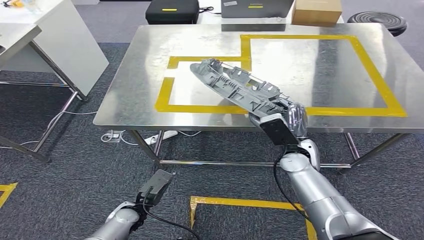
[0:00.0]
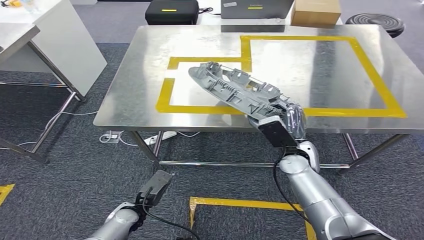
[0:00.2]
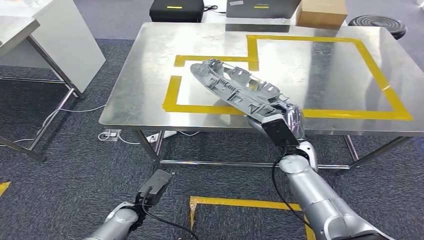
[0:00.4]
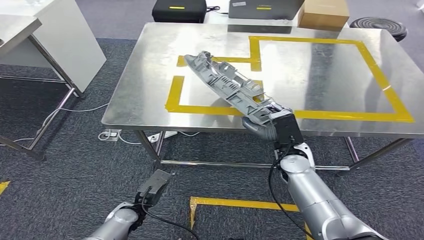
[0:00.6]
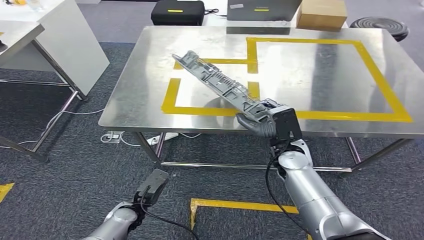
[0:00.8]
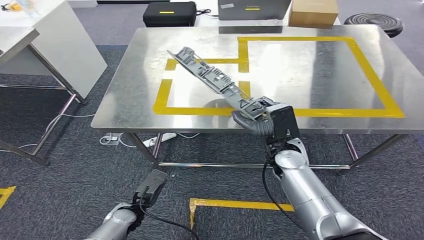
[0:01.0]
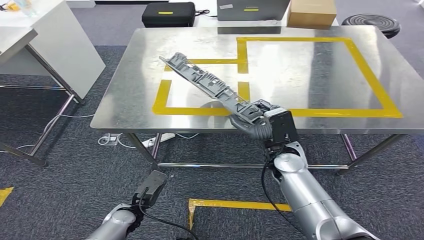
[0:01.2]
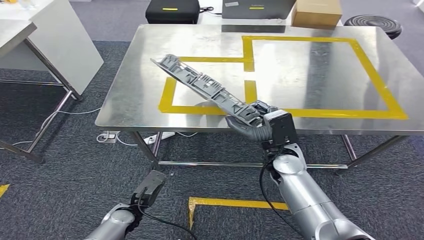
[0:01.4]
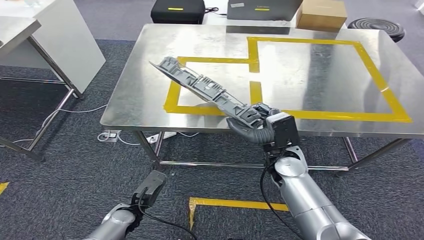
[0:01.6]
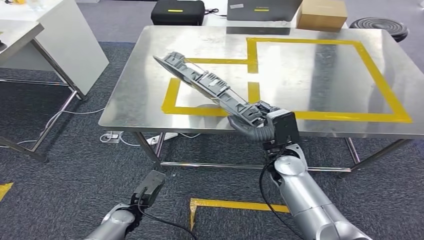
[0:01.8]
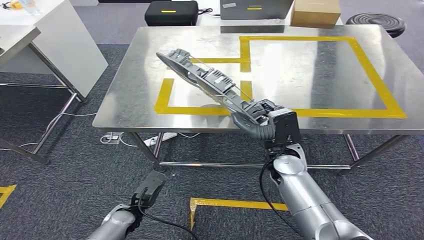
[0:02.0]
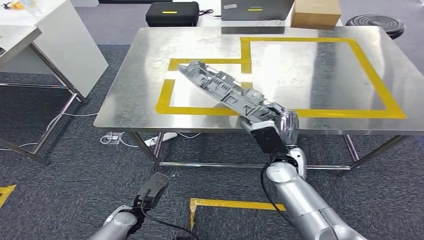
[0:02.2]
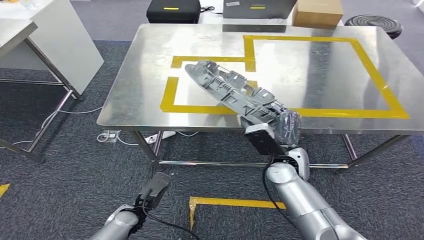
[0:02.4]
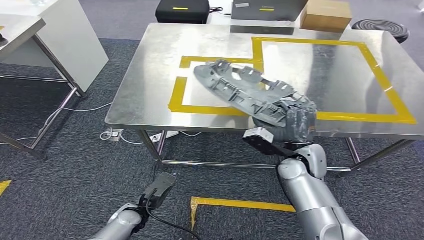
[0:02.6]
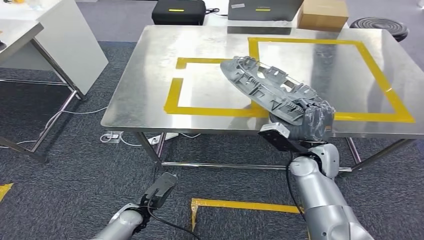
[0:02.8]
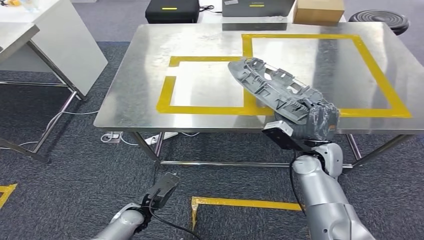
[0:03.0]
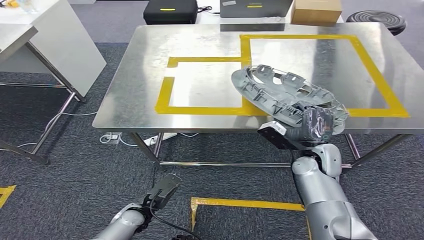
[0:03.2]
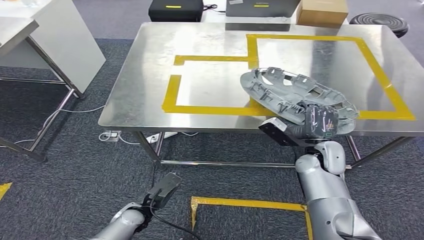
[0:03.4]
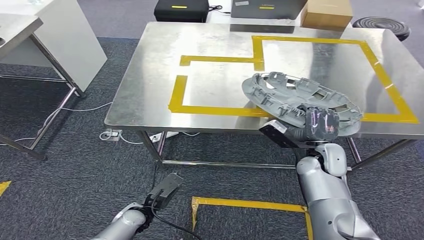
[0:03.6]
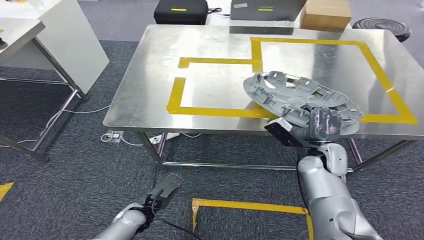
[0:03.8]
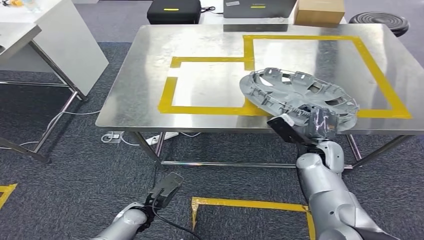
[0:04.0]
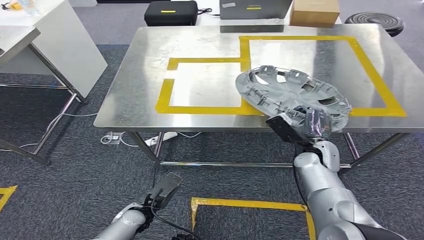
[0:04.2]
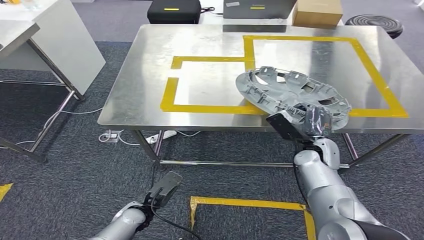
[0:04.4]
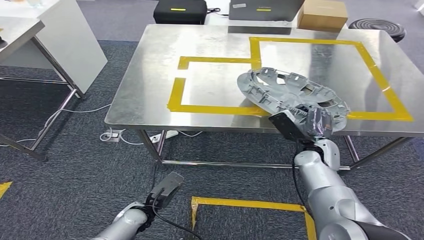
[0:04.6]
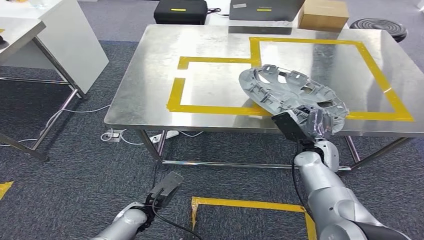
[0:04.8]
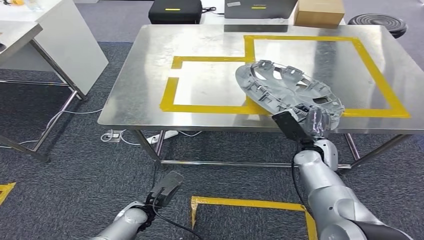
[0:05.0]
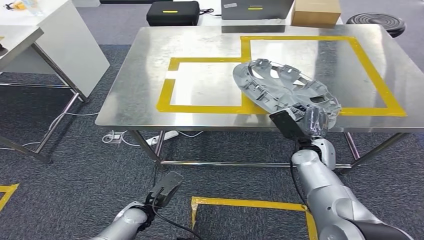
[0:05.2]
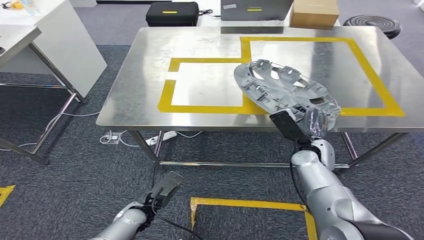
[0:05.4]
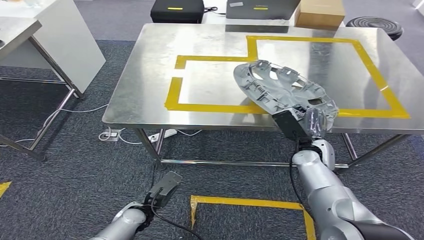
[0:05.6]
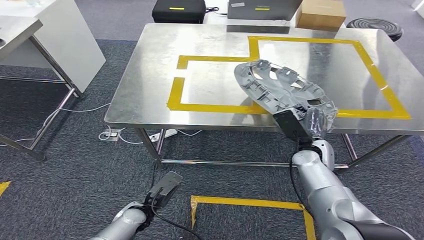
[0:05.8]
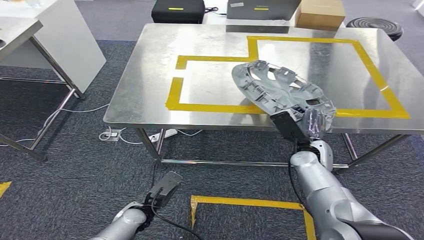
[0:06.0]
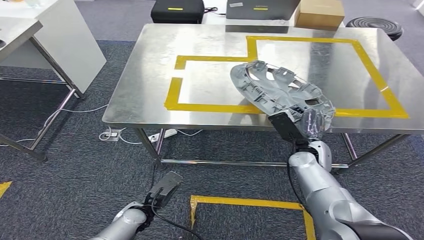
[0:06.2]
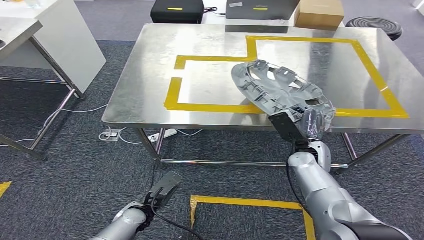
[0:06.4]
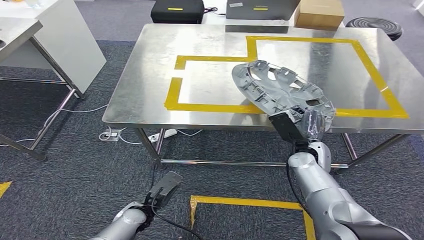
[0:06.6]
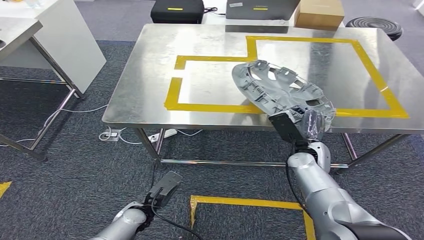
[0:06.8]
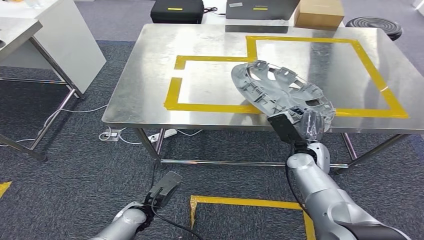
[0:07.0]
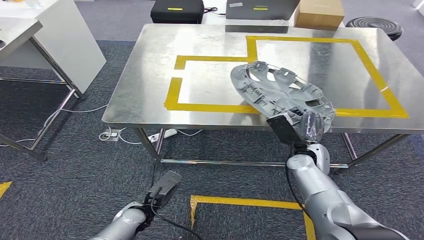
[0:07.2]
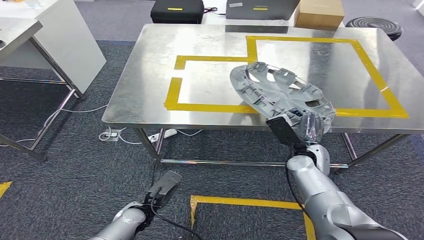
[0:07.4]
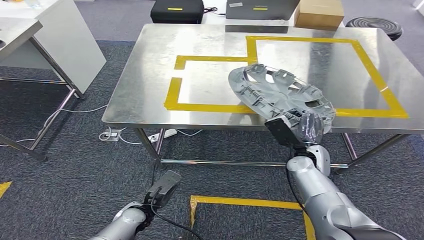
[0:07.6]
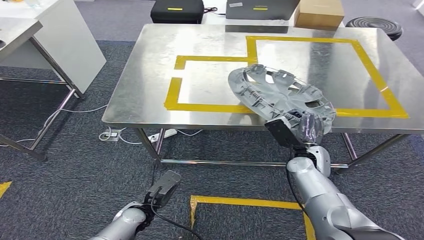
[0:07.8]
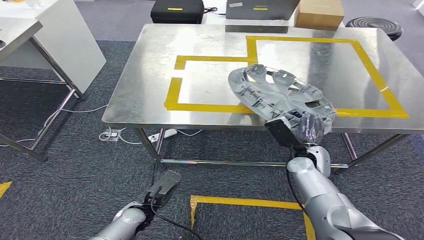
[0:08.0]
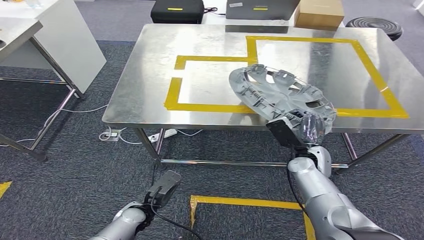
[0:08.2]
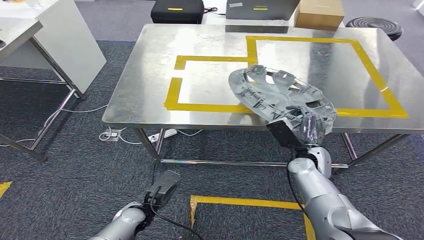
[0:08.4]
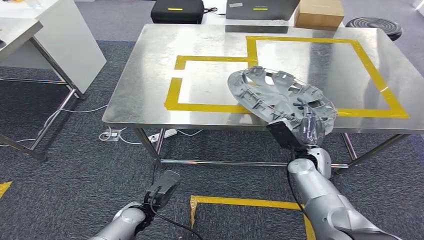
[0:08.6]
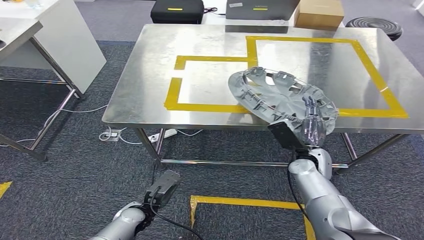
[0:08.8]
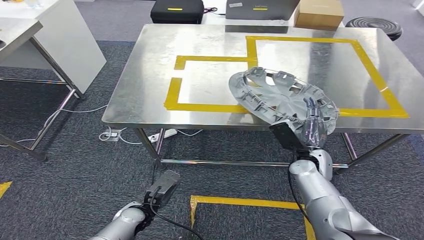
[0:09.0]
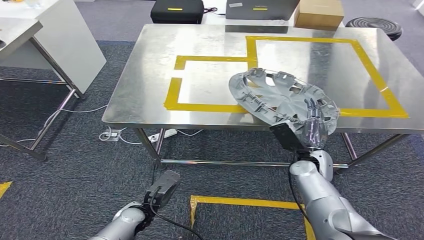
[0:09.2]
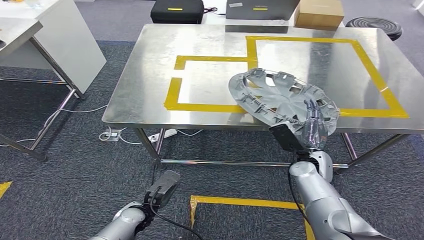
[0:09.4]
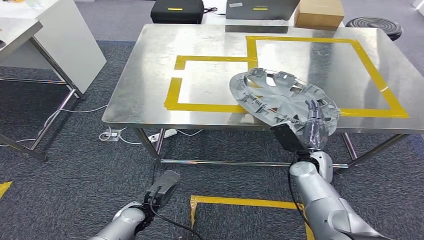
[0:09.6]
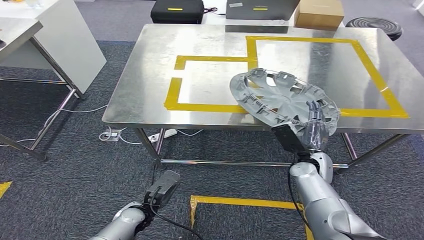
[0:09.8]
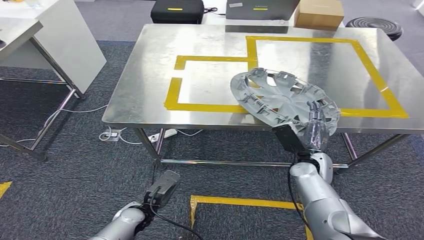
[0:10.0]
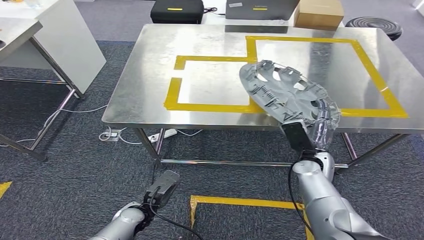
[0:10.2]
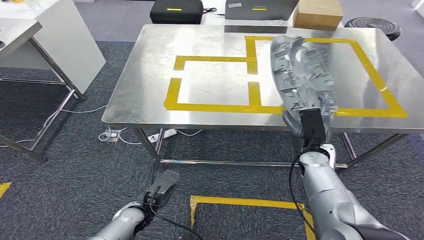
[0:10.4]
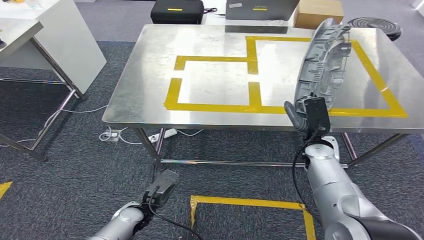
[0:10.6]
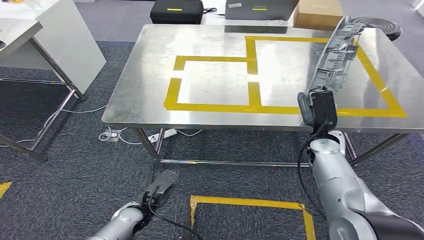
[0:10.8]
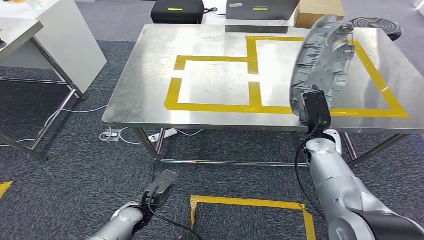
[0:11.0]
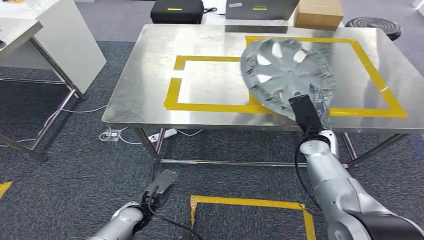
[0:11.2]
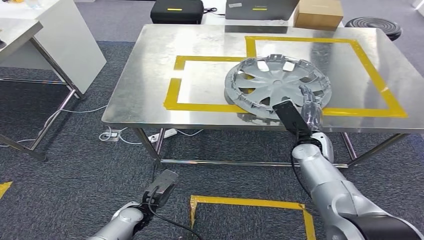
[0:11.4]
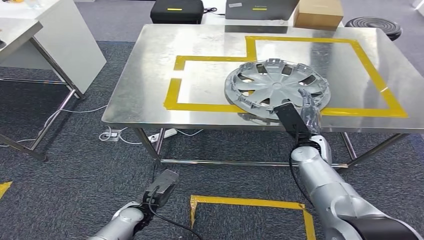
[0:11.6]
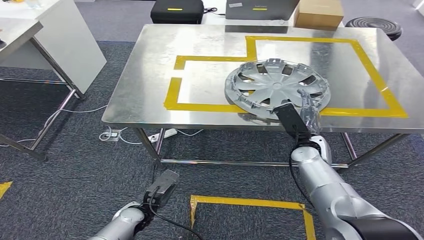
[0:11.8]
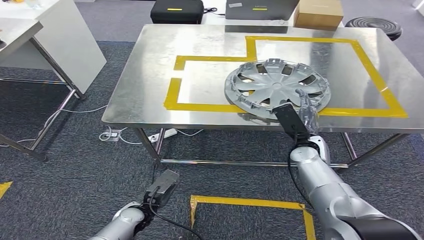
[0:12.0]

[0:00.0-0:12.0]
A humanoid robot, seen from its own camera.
0:03.0 to 0:04.4: The hands move only a little.
0:04.4 to 0:07.6: The hands stay close to where they were, moving slightly.
0:07.6 to 0:09.0: Both hands stay put.
0:10.4 to 0:12.0: The hands move only a little.

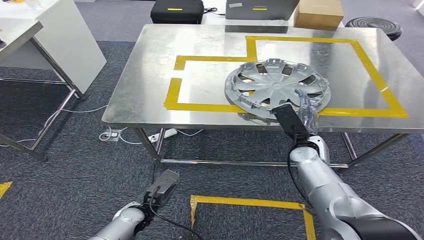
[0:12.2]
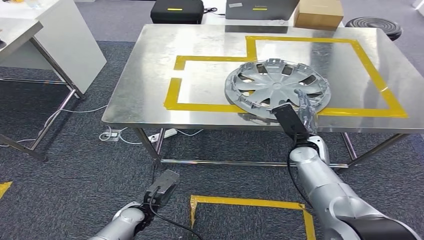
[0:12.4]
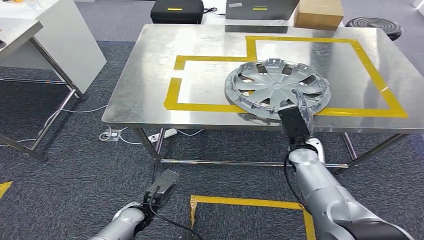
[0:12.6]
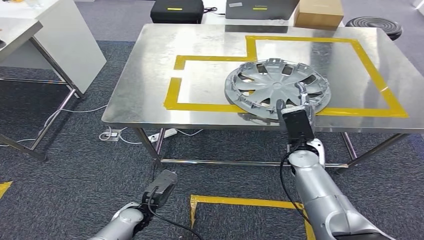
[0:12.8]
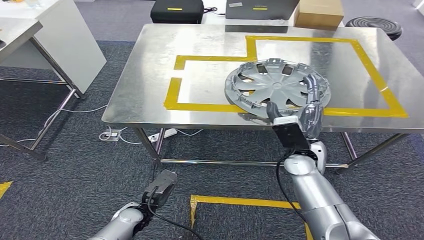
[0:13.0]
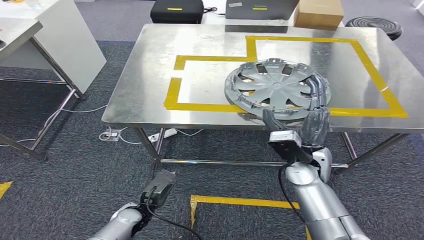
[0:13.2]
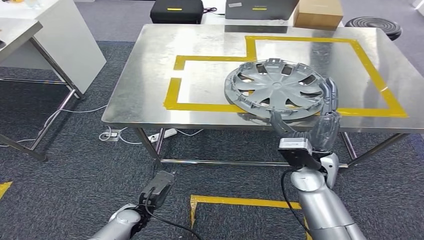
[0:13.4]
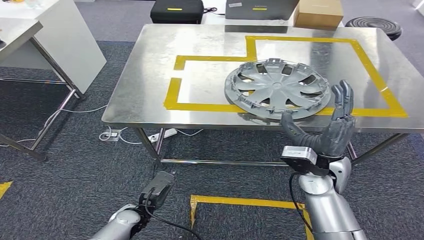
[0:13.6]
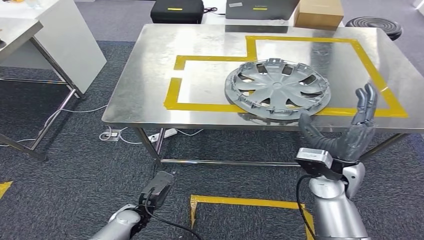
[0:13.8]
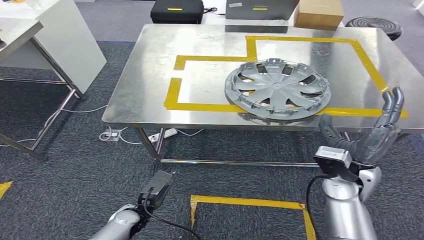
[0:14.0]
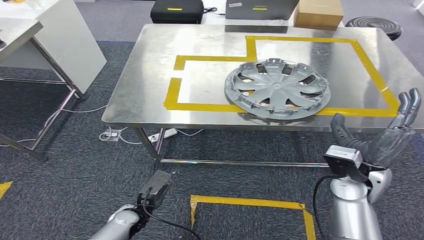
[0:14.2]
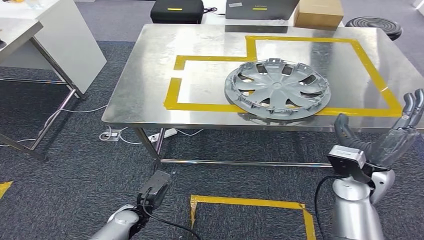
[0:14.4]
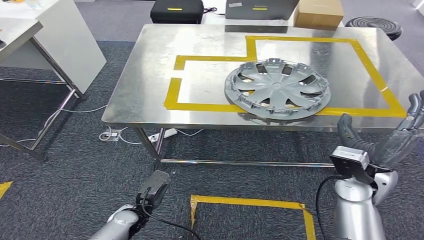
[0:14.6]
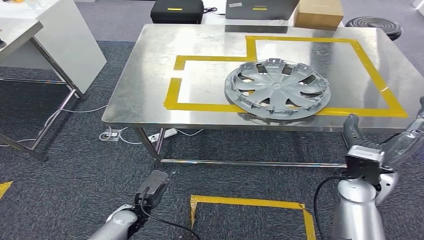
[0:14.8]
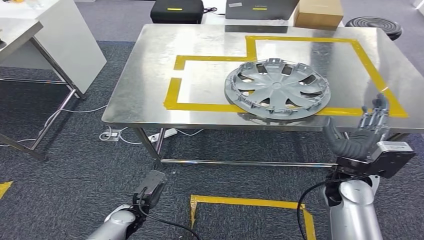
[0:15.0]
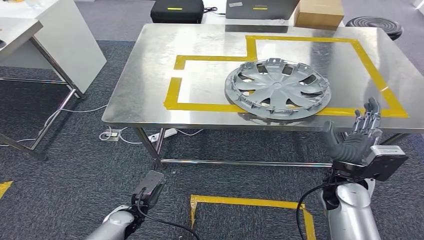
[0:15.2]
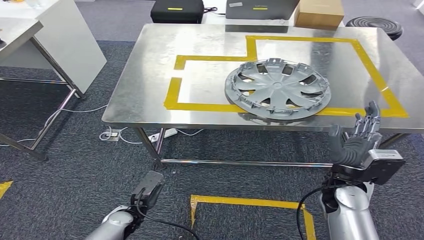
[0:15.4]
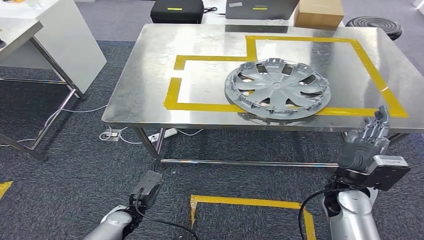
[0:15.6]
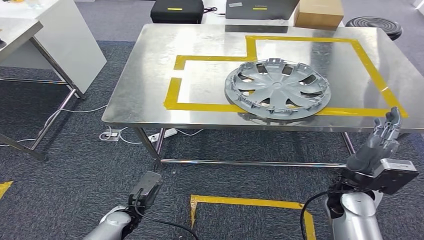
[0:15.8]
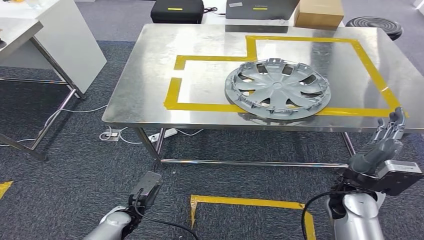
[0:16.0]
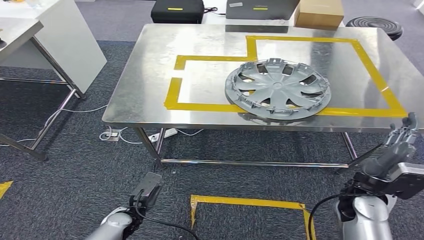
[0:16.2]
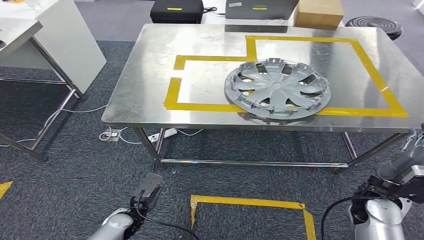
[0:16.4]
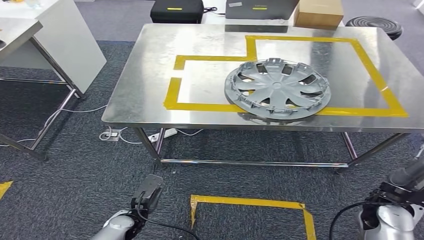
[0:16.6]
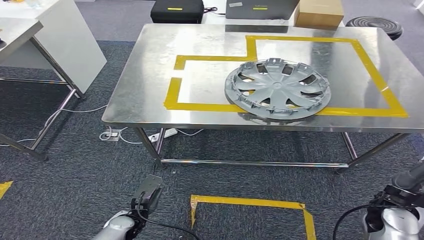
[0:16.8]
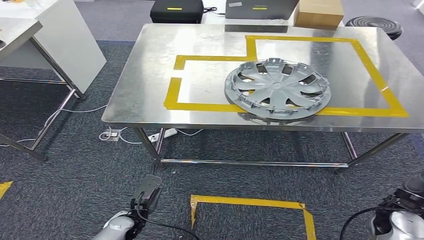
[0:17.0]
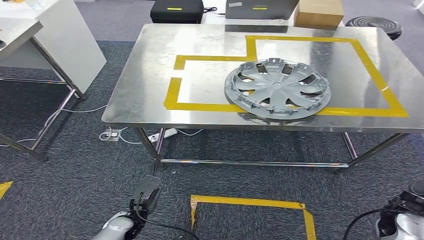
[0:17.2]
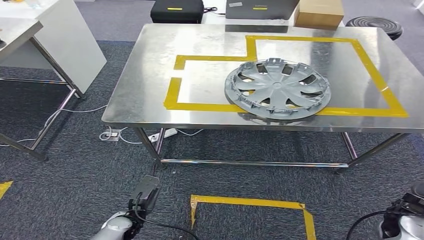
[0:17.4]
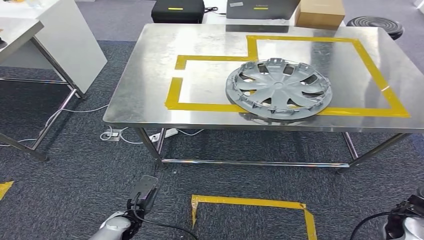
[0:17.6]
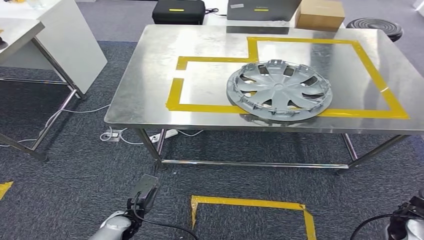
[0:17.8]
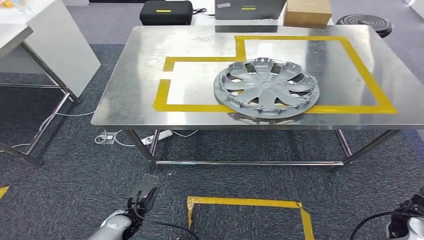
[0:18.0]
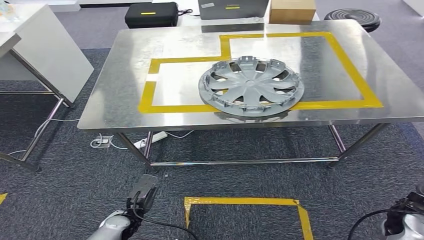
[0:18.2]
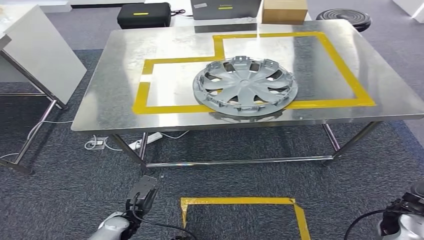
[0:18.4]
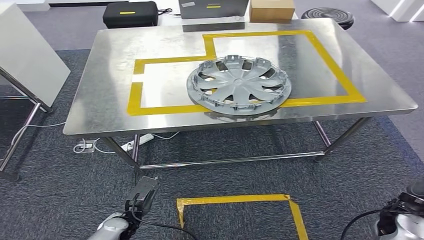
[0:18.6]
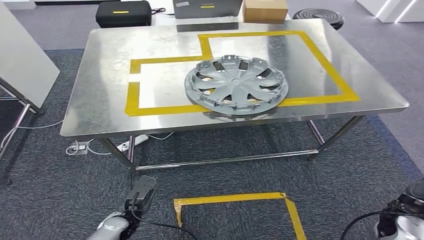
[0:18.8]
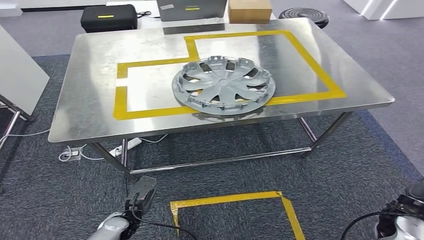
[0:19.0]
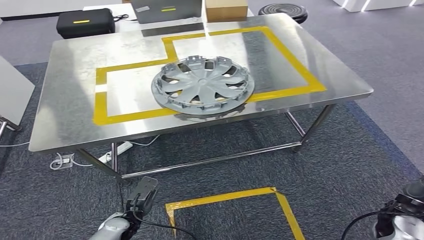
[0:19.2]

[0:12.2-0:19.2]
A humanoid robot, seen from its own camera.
0:12.2 to 0:13.6: The right hand travels backward by roughly 5 cm.
0:13.6 to 0:15.0: The right hand is displaced to the right by approximately 5 cm.
0:15.0 to 0:16.4: The right hand shifts about 5 cm to the right.
0:16.4 to 0:17.8: The right hand shifts some 10 cm to the right.
